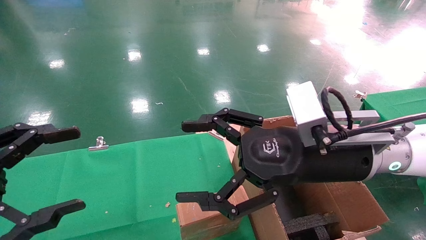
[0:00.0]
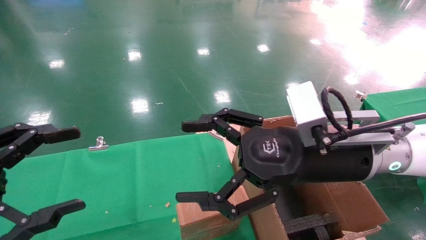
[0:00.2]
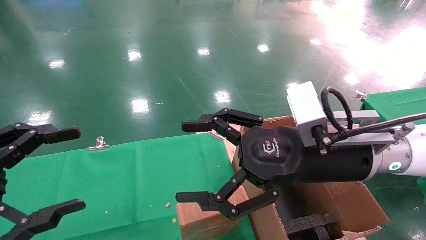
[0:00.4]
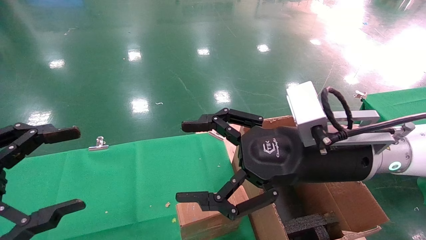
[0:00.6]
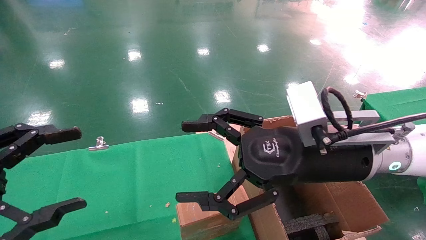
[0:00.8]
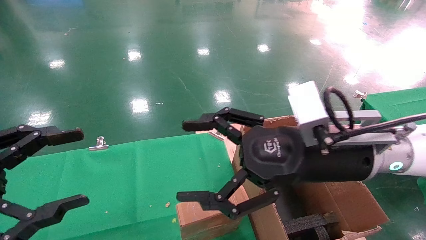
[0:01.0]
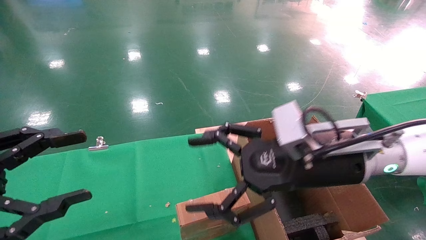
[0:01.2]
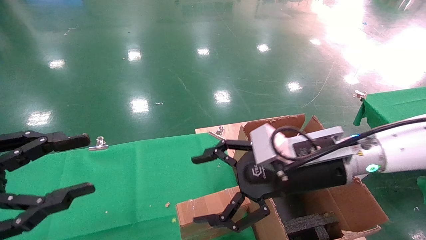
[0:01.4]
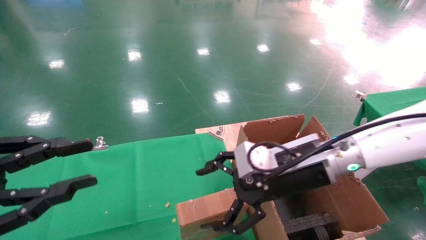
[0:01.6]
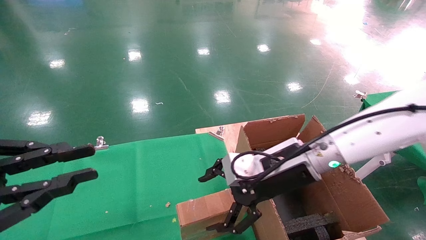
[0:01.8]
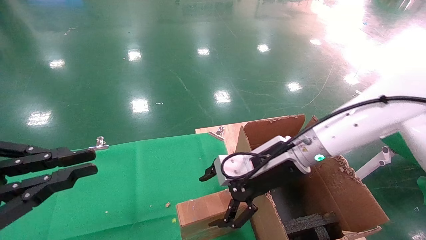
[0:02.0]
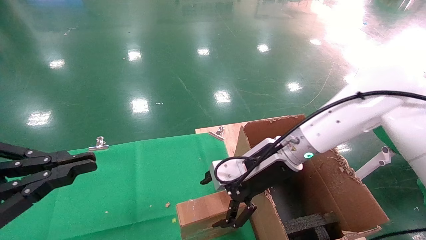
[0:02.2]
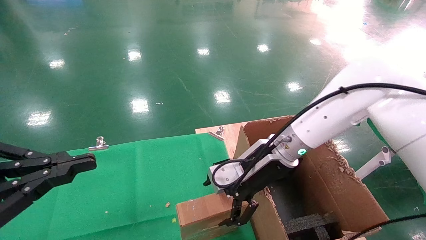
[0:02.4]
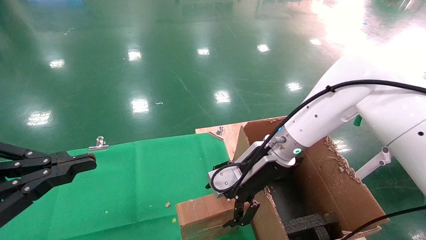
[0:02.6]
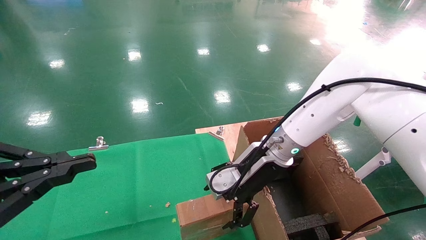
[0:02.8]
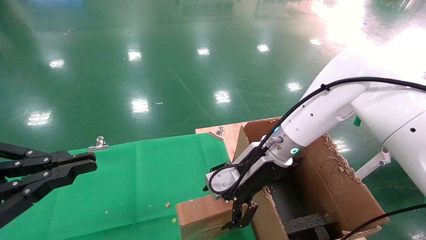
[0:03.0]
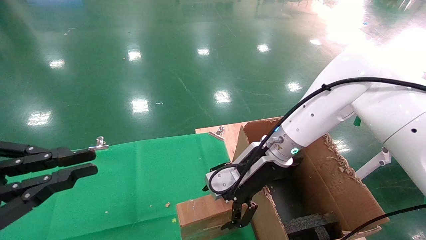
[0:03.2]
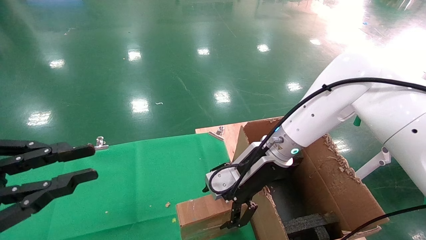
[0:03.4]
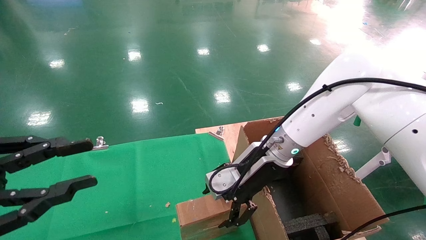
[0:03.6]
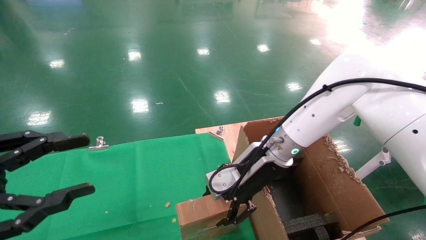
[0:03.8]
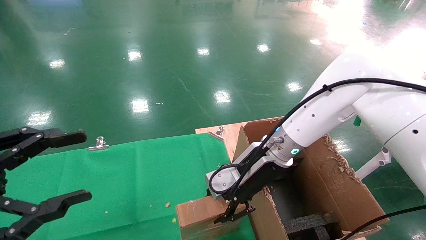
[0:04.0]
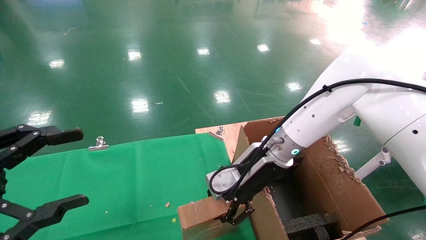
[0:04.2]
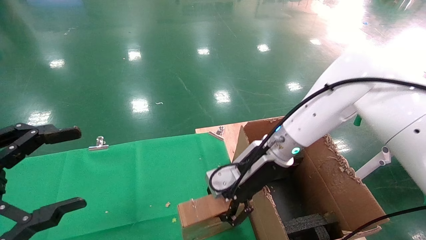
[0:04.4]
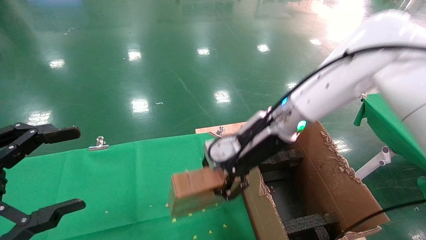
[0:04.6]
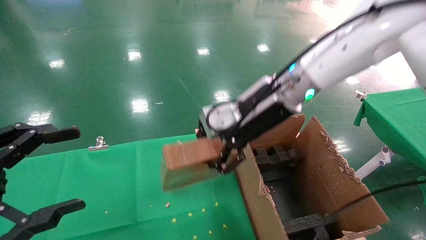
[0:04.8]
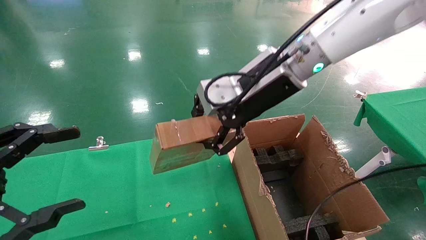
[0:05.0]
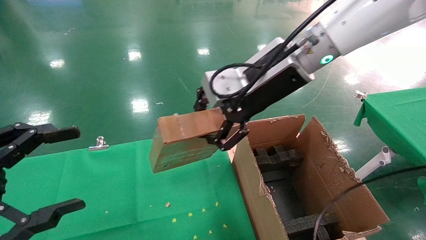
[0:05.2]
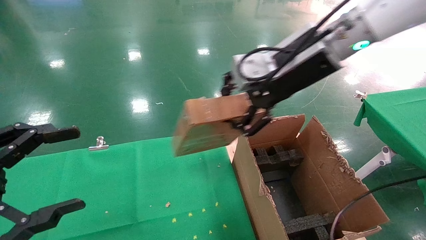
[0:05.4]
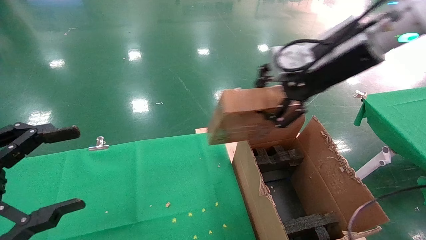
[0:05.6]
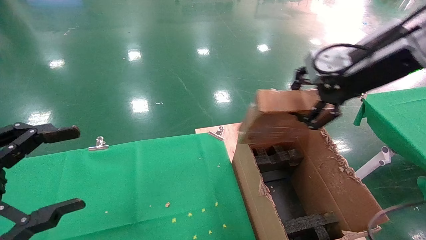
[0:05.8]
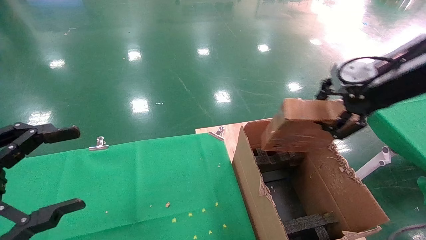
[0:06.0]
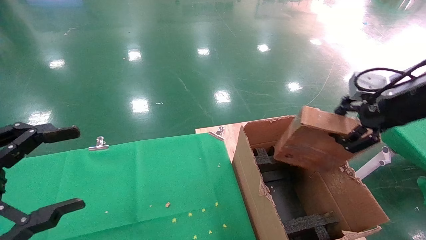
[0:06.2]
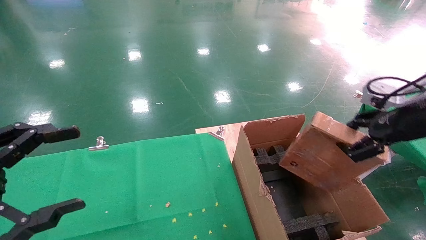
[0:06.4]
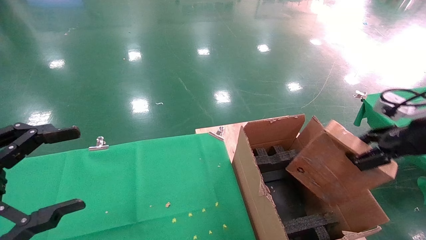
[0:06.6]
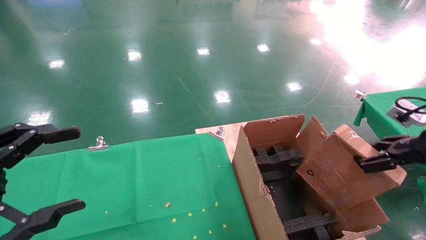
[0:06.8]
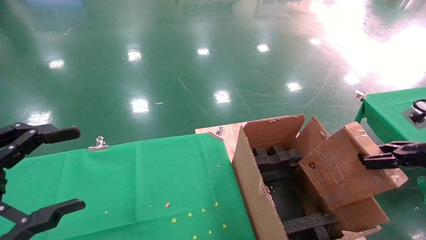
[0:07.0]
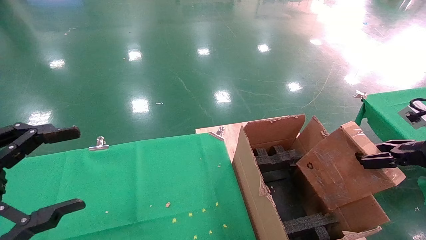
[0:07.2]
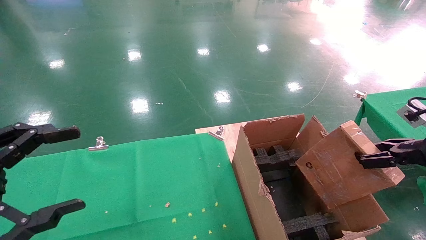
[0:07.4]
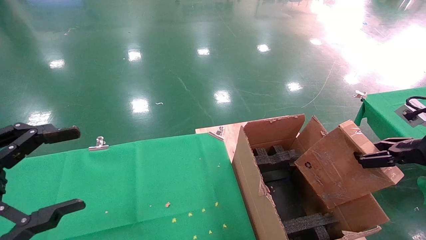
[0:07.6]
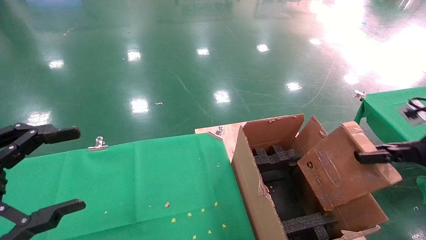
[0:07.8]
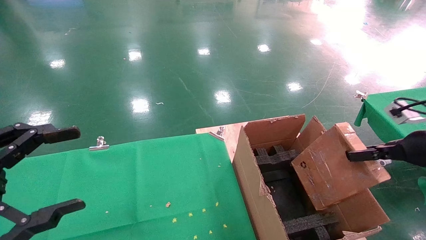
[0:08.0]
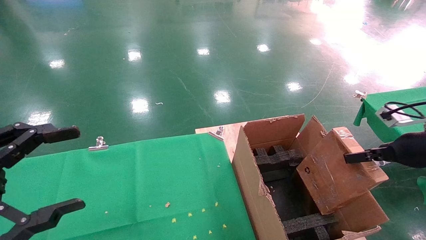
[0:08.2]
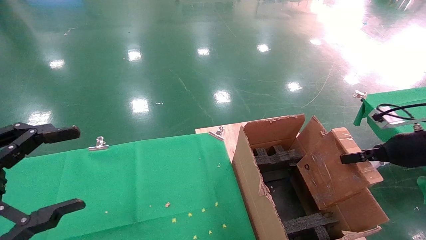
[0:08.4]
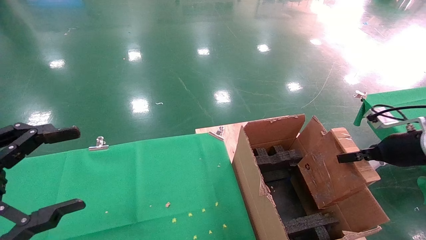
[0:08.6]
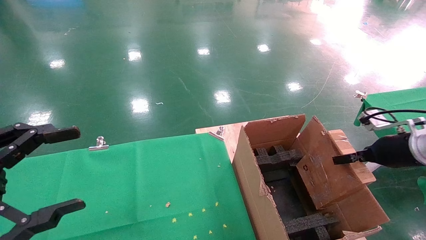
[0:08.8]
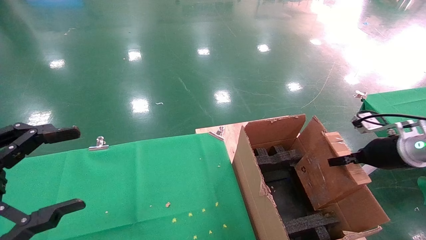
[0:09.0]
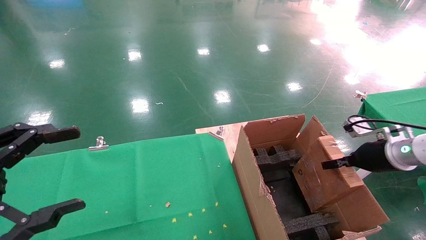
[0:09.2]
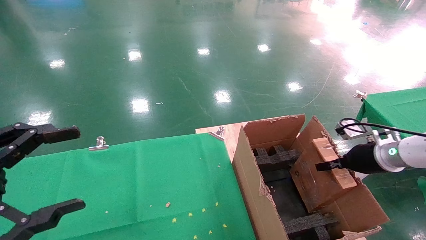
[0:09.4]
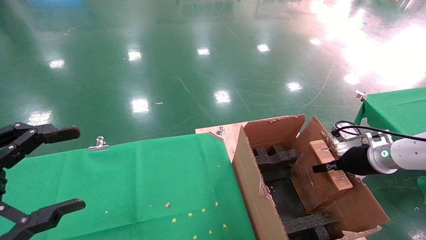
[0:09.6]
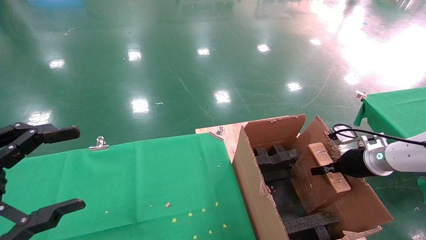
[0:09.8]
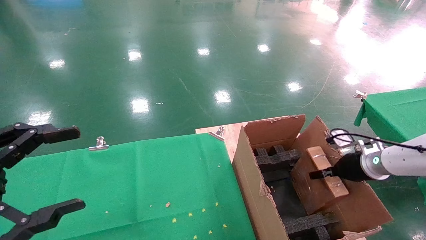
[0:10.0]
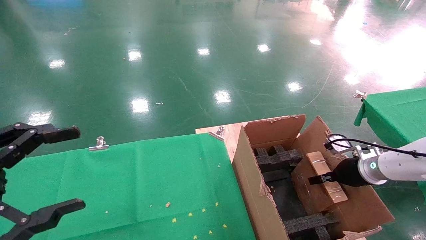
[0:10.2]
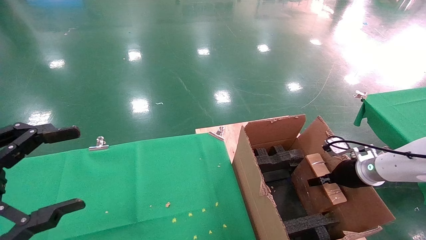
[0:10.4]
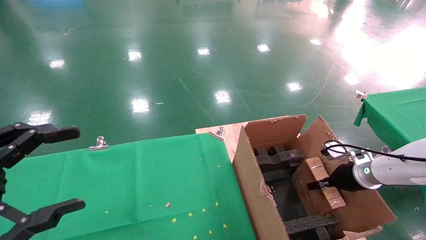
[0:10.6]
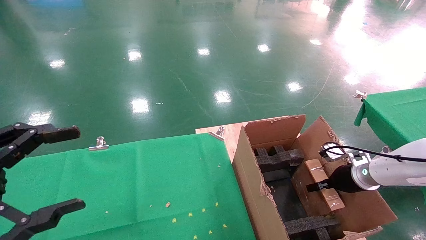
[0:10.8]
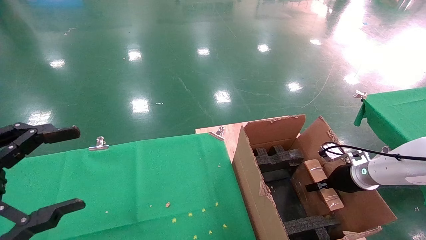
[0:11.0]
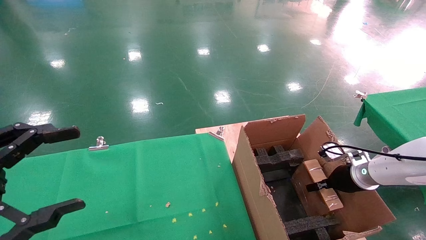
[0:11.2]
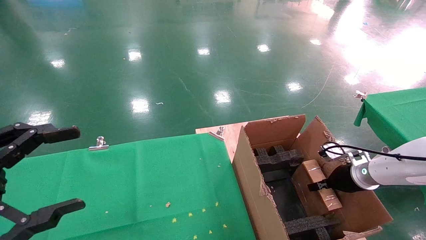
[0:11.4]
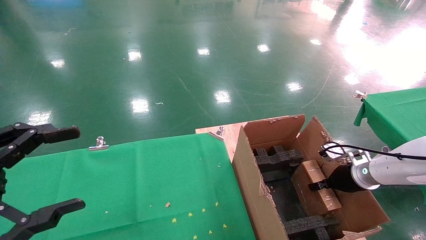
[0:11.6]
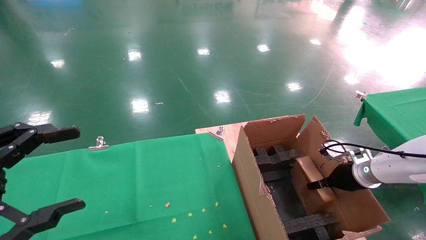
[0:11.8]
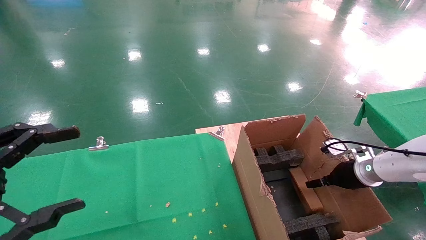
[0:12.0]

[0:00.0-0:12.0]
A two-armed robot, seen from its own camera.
Task of the whole recording: using a robotic arm to pick up a cardboard box and palace it the carton.
Step, 0:01.6 to 0:04.2: Pick up the mouse and the power cord paper box.
0:00.0 to 0:01.6: The left gripper closes its fingers. Meanwhile the right gripper is displaced forward by some 5 cm.
0:01.6 to 0:03.0: The left gripper closes its fingers. The right gripper shifts roughly 5 cm forward.
0:03.0 to 0:04.4: The left gripper opens its fingers; the right gripper closes its fingers.
0:04.4 to 0:06.0: The right gripper heads to the right, upward and backward, covering approximately 25 cm.
0:06.0 to 0:07.6: The right gripper travels downward and to the right by roughly 20 cm.
0:07.6 to 0:09.0: The right gripper shifts about 10 cm forward and downward.
0:09.0 to 0:10.4: The right gripper heads downward, covering some 10 cm.
0:10.4 to 0:12.0: The right gripper opens.

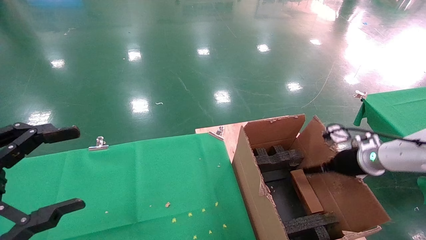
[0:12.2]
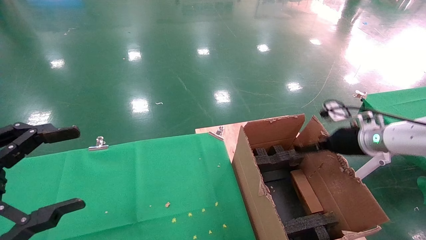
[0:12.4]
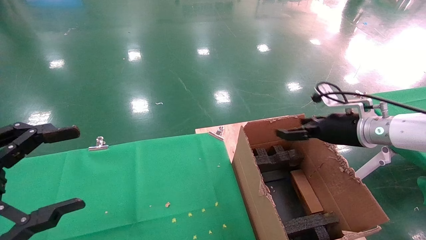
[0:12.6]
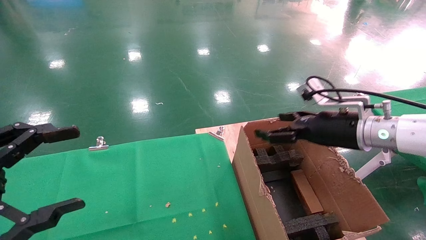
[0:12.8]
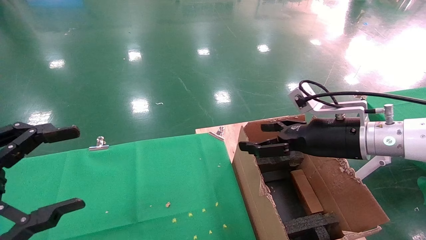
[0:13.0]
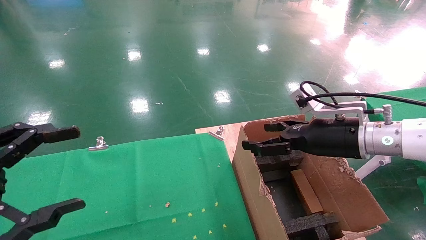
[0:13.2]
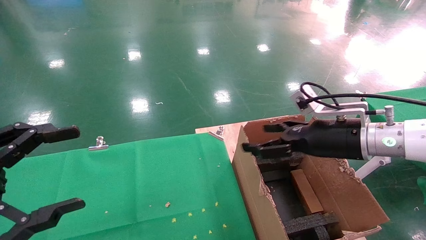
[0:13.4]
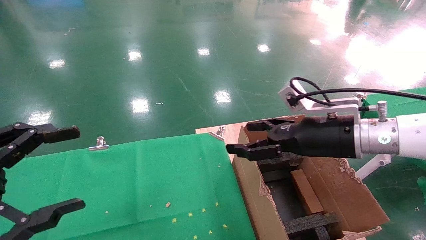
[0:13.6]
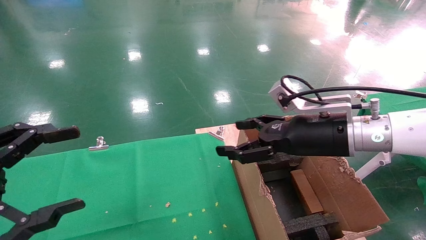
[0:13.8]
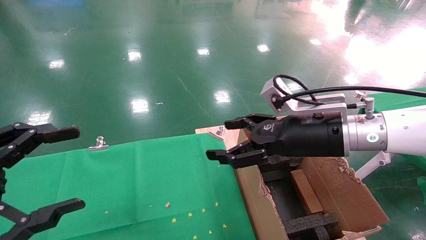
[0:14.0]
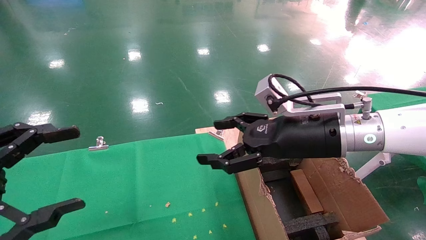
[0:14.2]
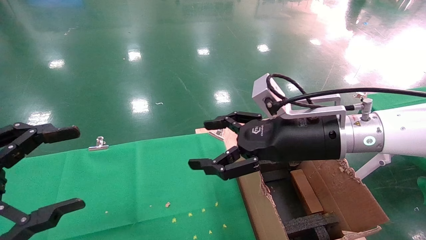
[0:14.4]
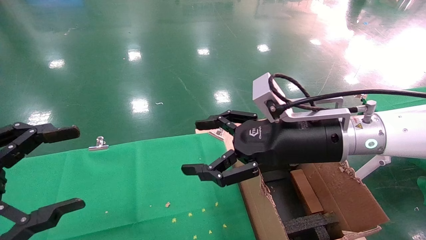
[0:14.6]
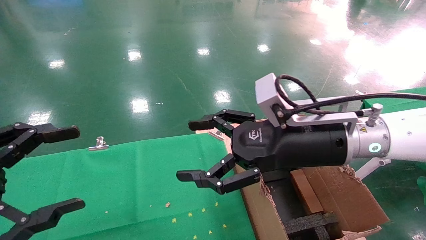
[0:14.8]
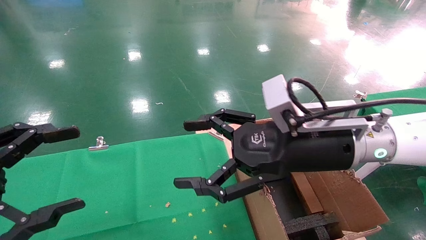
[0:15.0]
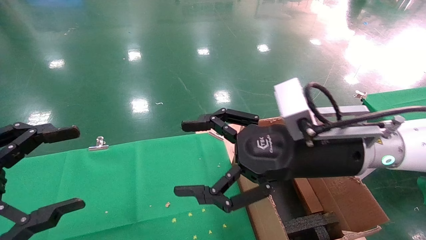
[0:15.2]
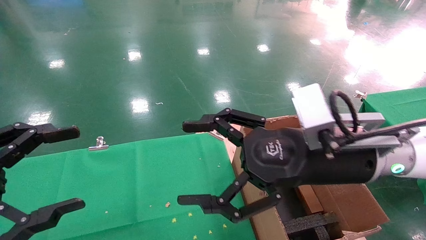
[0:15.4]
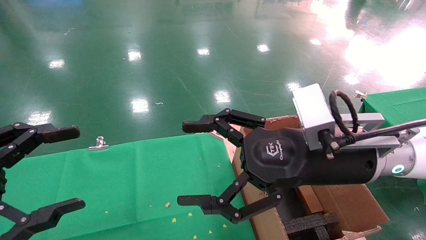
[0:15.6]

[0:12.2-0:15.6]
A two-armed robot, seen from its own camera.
Task of the whole recording: using a robotic arm to pick up a cardboard box and palace it the carton.
0:12.2 to 0:13.8: The right gripper shifts approximately 20 cm to the left, upward and backward.
0:13.8 to 0:15.6: The right gripper heads backward, covering about 5 cm.
